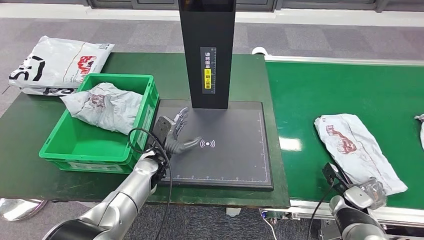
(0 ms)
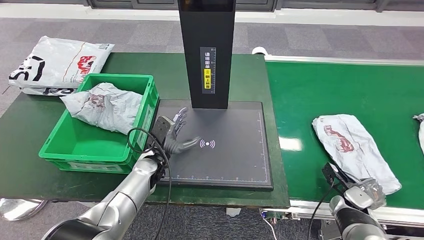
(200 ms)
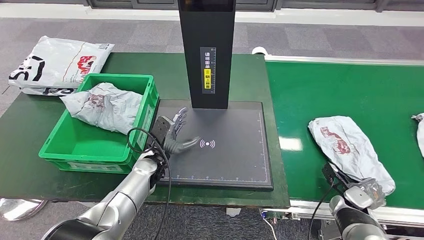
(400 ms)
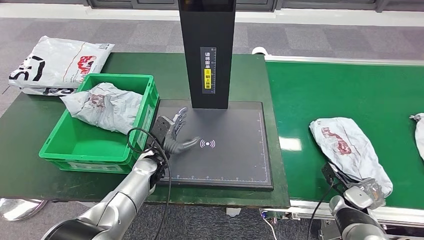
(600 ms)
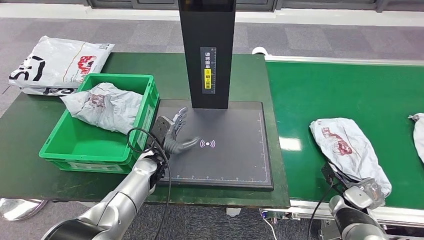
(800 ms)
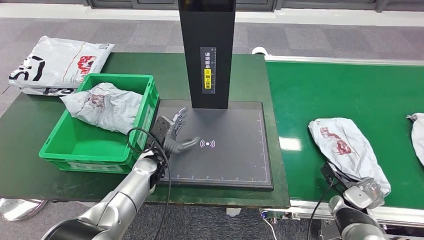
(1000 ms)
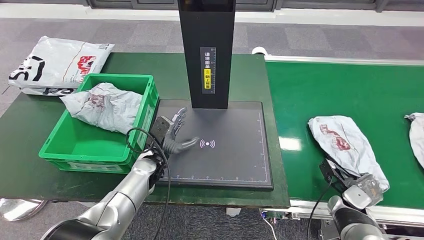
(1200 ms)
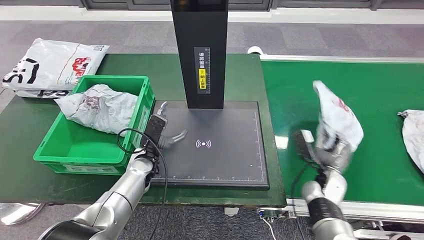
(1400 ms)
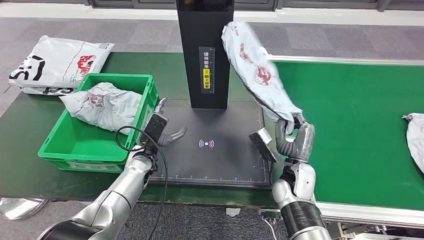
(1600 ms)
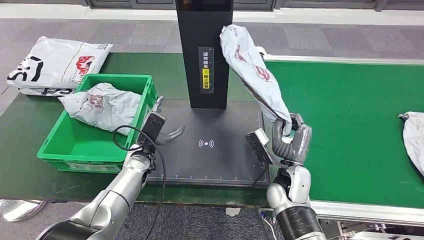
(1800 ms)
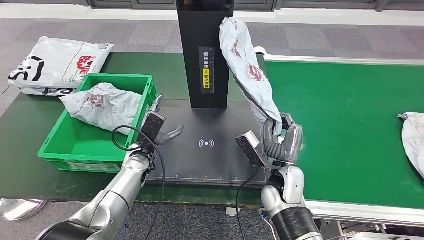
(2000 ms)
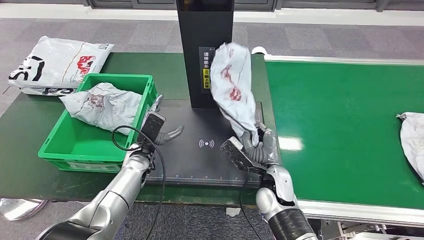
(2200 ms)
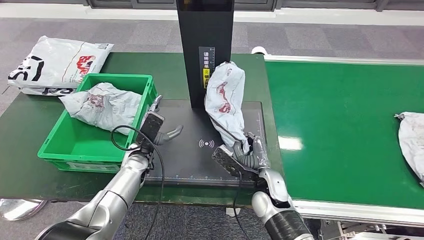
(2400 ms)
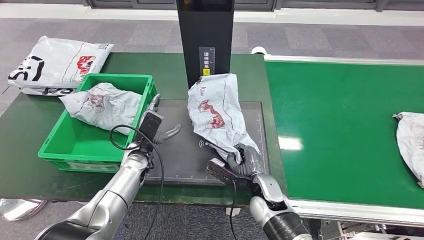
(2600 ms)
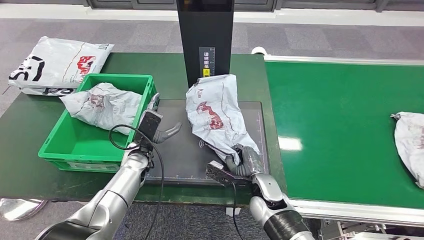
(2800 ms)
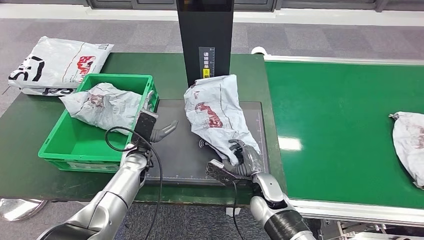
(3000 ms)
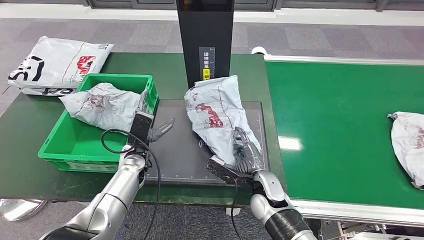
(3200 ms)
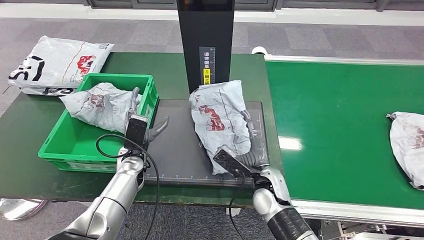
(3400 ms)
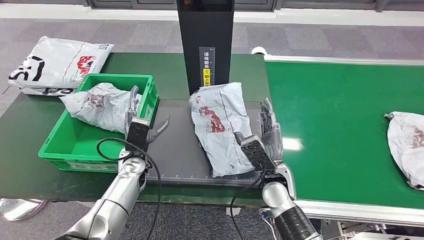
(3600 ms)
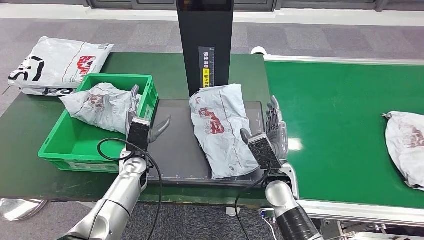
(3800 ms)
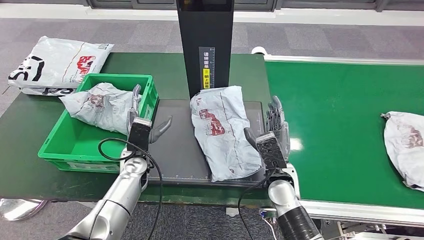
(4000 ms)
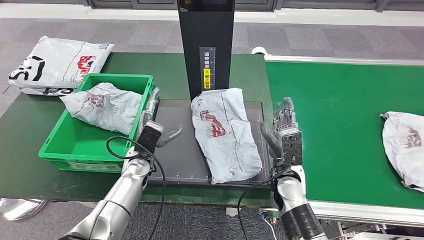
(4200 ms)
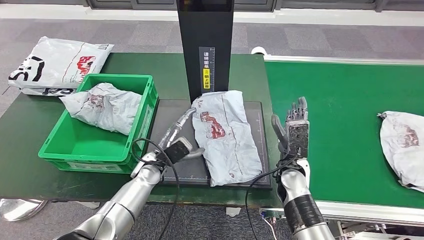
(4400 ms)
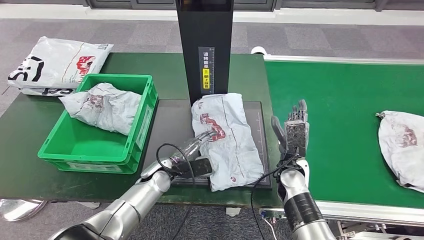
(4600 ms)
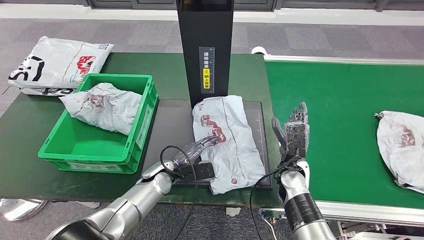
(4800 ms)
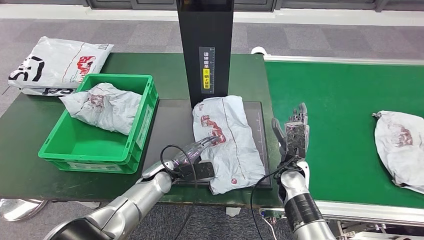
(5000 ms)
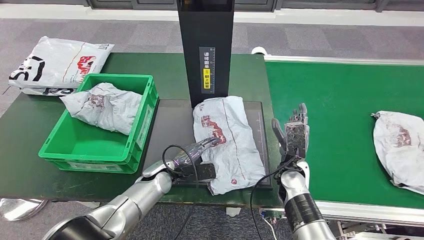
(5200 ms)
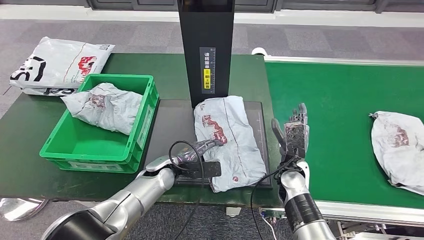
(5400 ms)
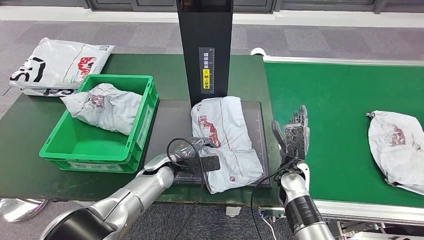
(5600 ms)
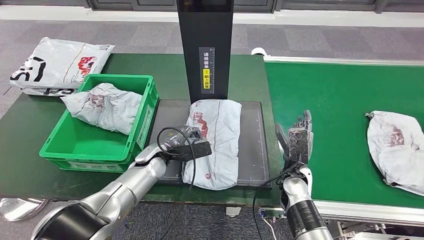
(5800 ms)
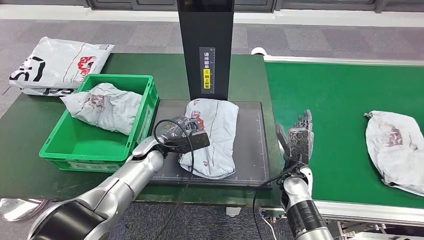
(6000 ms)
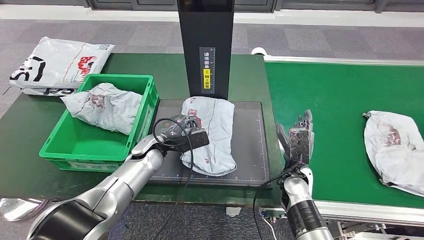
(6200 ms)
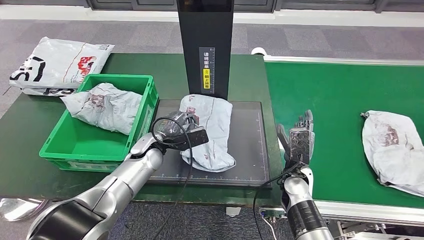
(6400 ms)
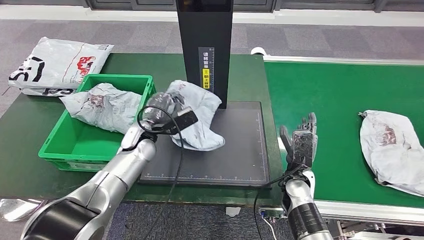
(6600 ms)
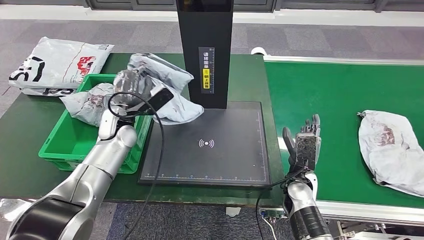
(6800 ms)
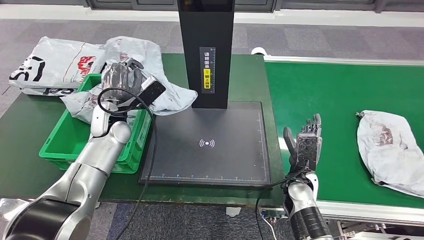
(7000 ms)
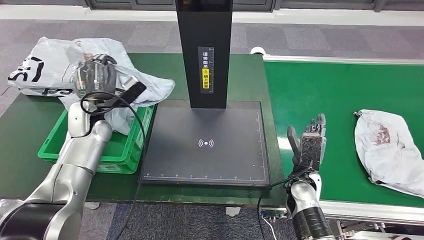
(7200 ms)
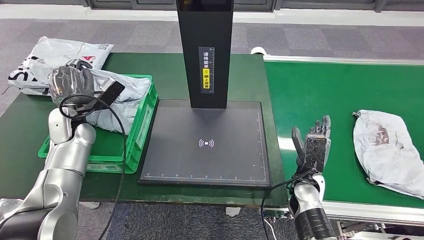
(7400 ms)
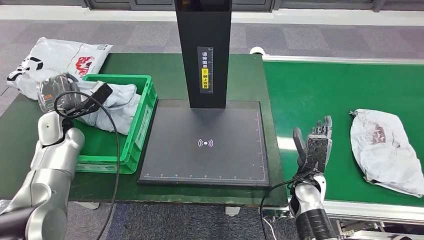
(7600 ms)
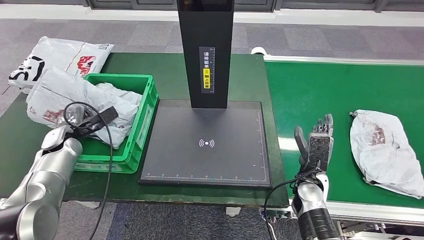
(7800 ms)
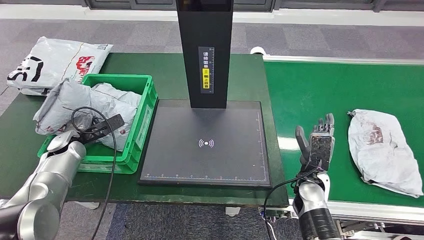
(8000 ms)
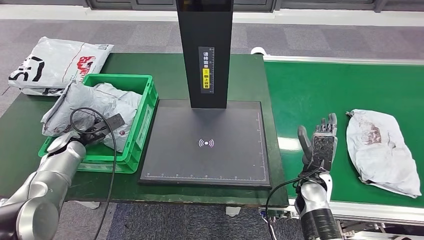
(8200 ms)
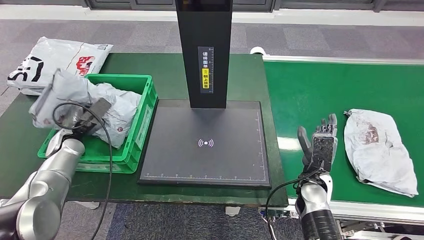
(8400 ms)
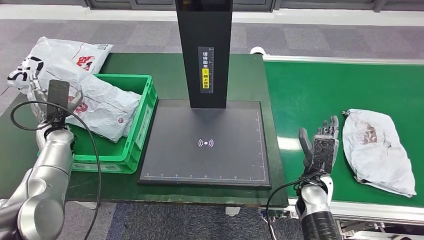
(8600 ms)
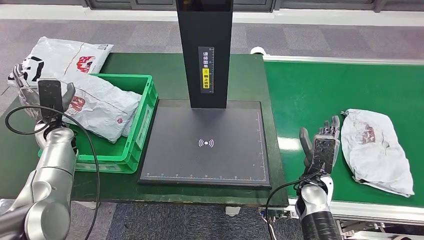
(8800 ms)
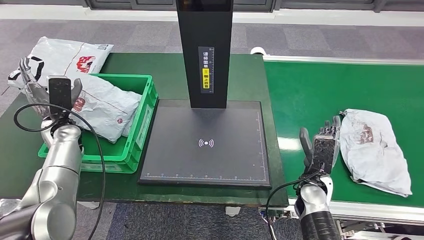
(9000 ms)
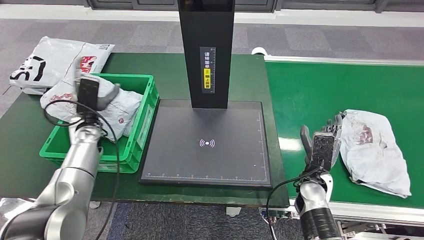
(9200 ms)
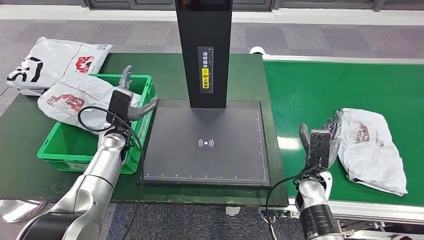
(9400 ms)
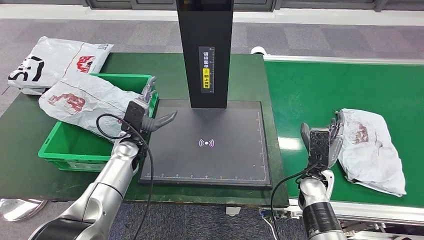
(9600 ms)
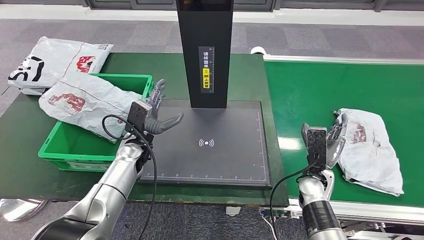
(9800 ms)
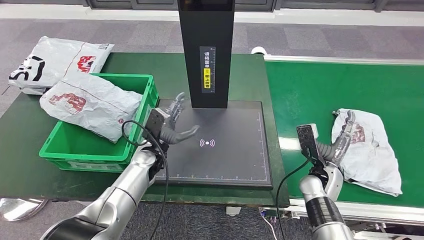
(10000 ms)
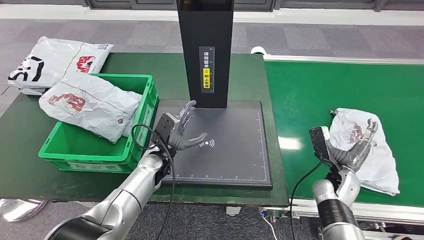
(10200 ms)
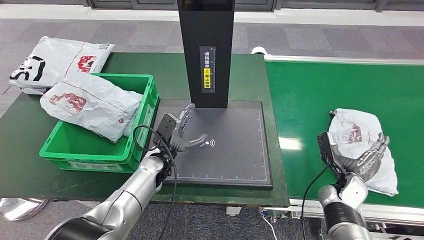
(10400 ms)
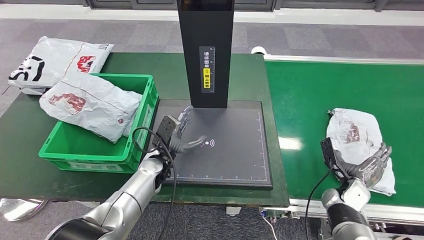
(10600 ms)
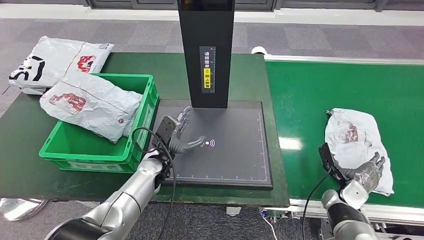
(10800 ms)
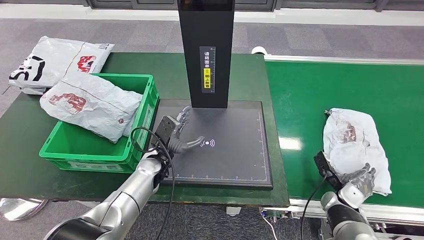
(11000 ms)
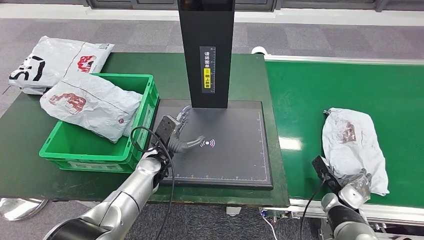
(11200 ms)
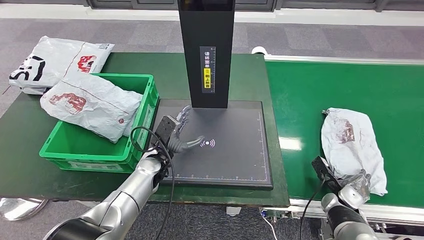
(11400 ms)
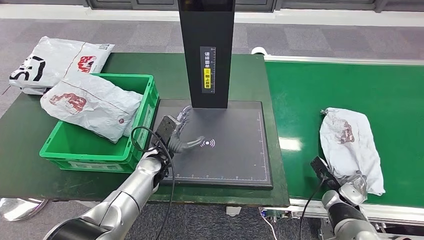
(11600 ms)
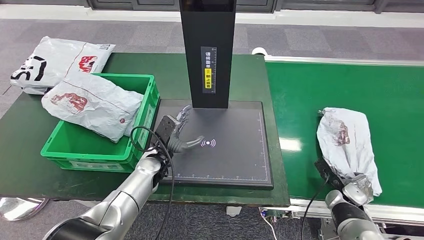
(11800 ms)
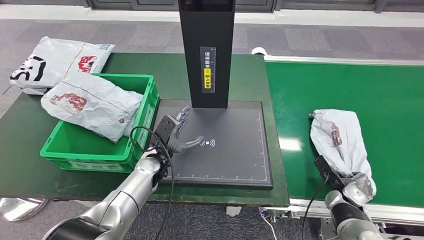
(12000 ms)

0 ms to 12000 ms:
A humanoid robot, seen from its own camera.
Step, 1600 ms to 4200 ms: Place the parcel onto the inbound machine.
Step, 4600 ms to 6800 ms: Pick up the parcel from the inbound machine.
Step, 7000 ms to 9600 ms: Place the parcel into the delivery box.
3000 ms to 4400 ms: The right hand goes about 5 cm to the right.

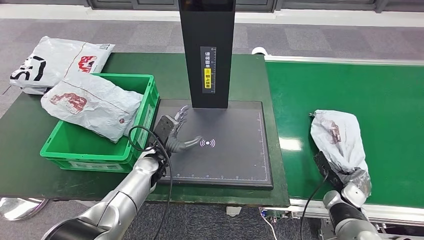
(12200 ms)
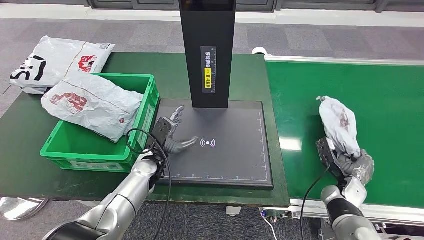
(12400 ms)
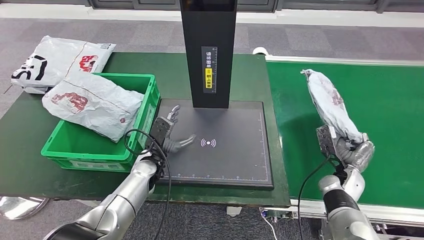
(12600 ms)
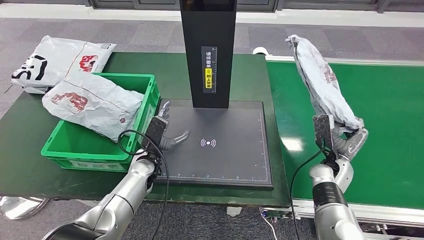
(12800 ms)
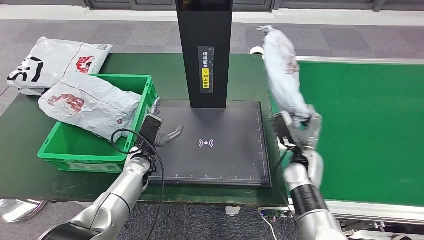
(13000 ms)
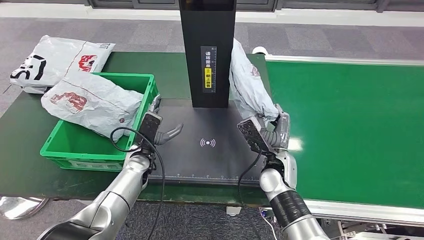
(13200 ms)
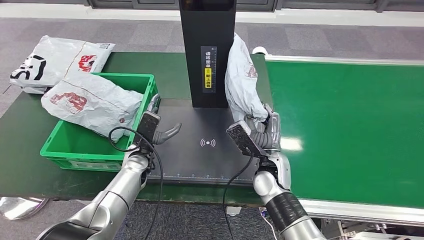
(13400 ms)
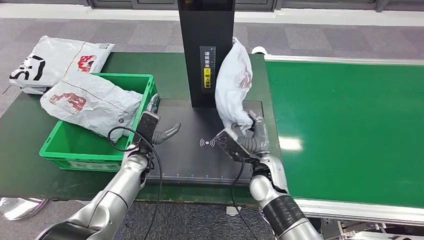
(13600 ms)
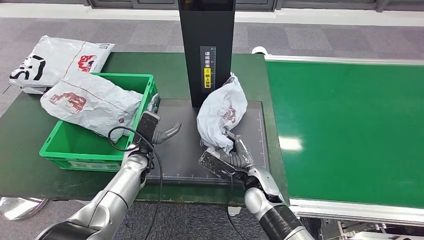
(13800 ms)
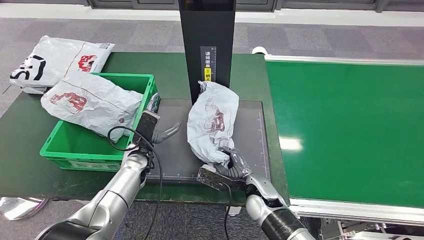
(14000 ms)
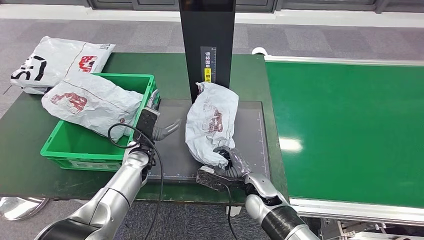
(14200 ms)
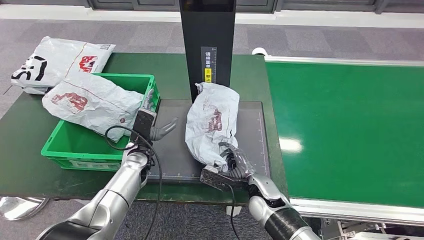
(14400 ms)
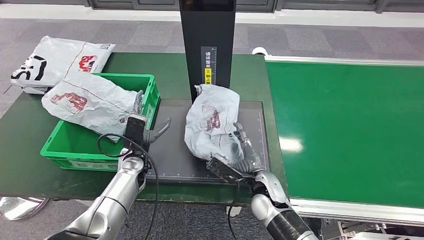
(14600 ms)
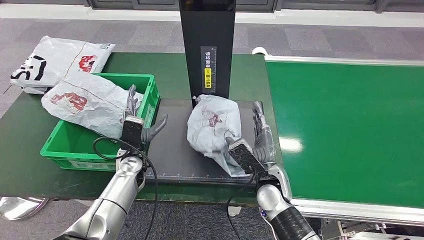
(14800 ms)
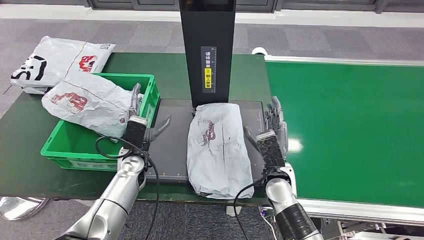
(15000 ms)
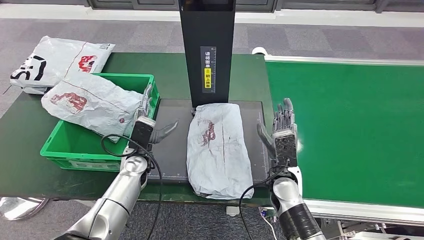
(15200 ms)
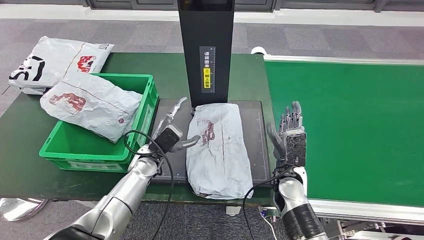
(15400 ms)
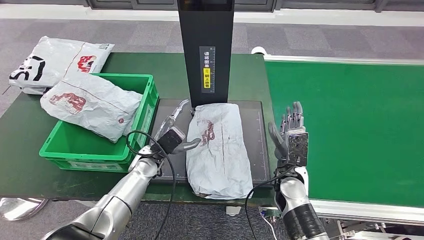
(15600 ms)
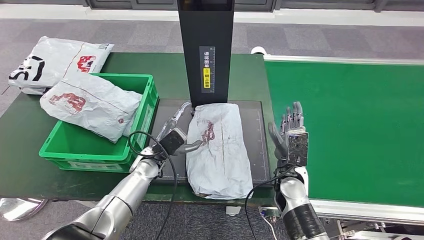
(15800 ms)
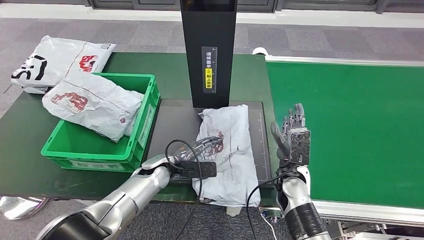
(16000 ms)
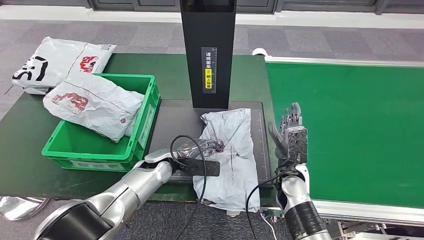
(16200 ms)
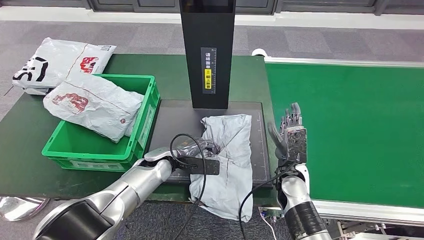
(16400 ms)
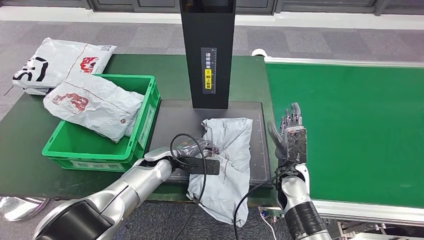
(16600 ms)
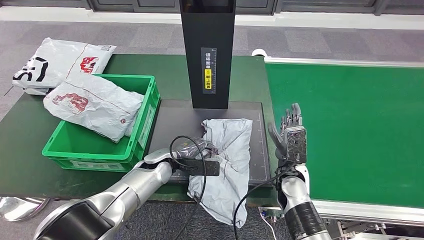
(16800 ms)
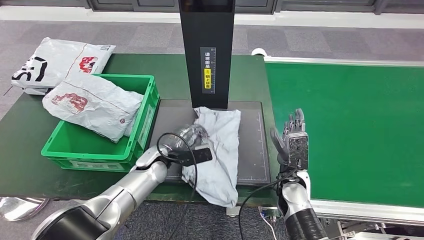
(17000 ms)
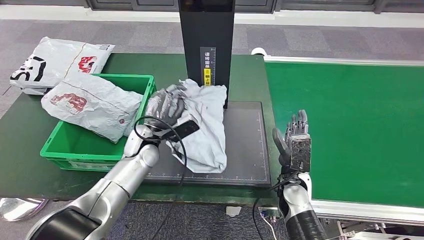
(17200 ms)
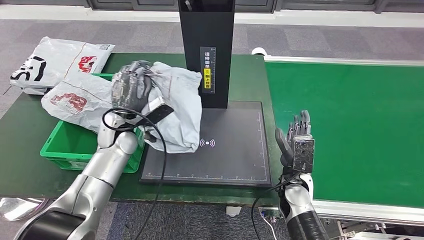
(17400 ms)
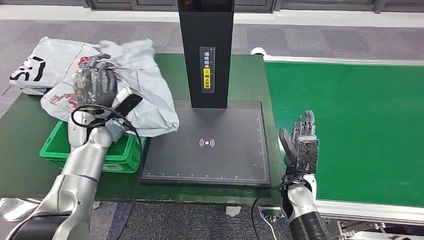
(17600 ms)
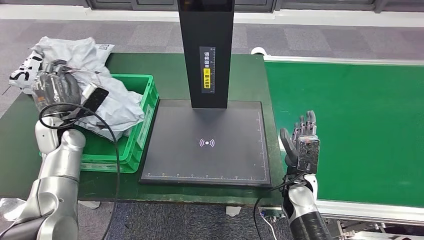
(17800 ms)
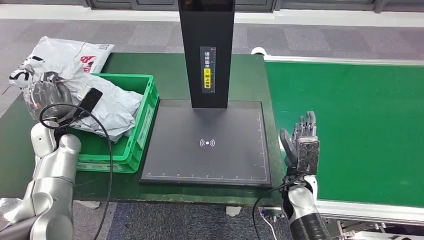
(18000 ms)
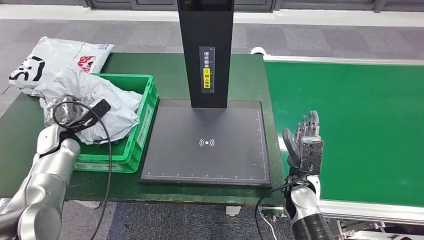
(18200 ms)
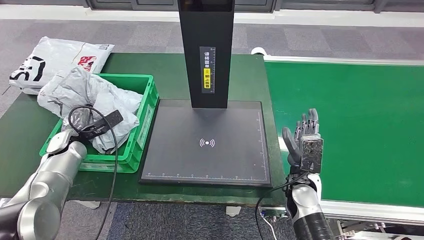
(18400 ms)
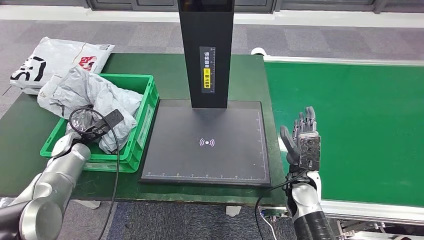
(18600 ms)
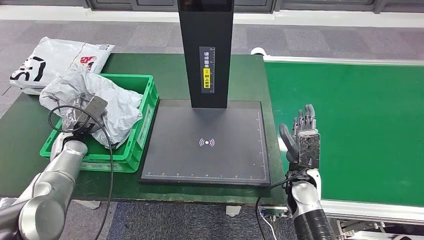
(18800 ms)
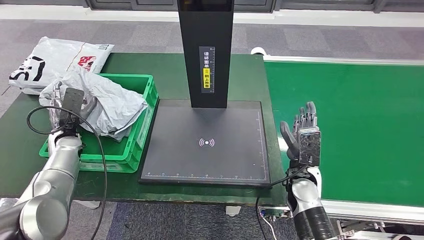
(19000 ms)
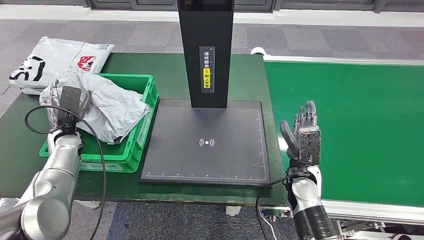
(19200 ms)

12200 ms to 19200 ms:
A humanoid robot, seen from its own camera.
Step, 12600 ms to 15200 ms: Place the parcel onto the inbound machine.
Step, 15400 ms to 17400 ms: Pick up the parcel from the inbound machine.
17800 ms to 19200 ms: The left hand is displaced downward by about 5 cm.
